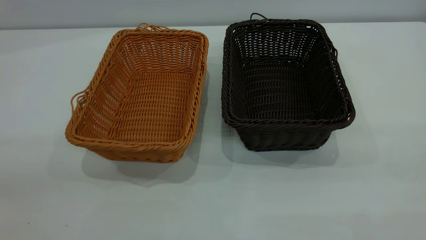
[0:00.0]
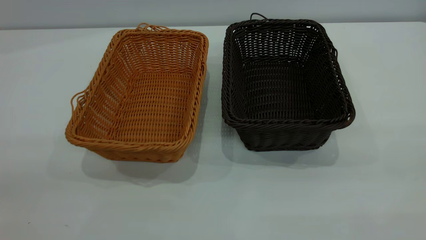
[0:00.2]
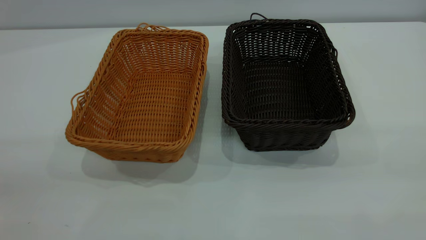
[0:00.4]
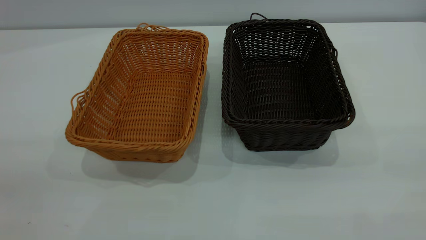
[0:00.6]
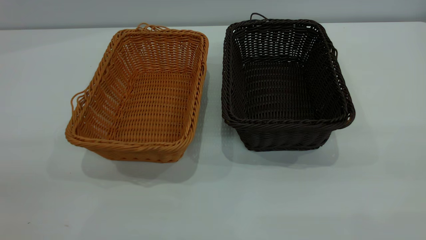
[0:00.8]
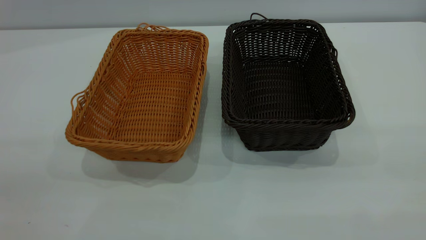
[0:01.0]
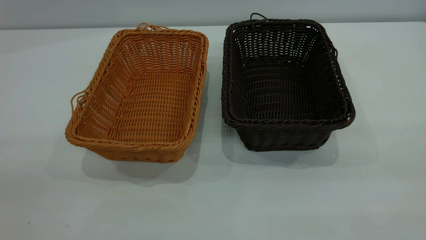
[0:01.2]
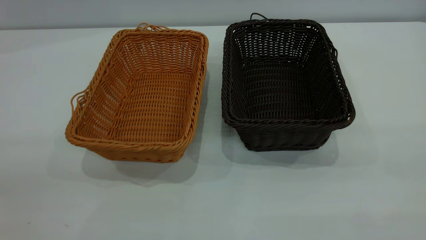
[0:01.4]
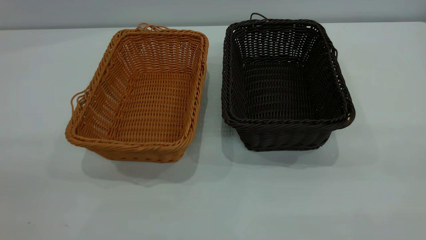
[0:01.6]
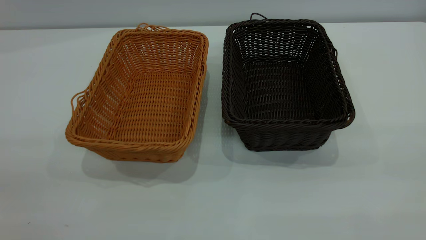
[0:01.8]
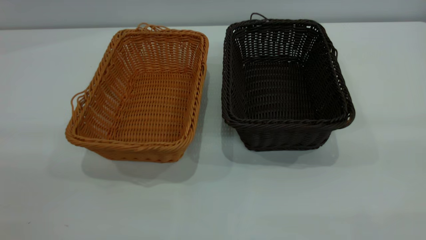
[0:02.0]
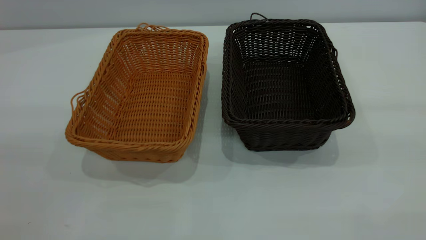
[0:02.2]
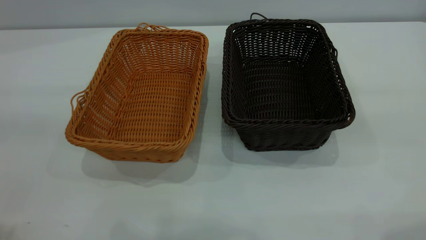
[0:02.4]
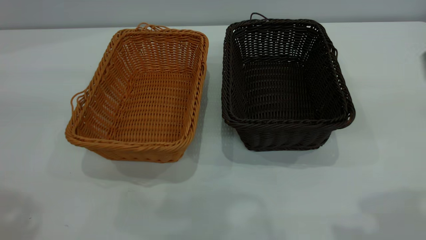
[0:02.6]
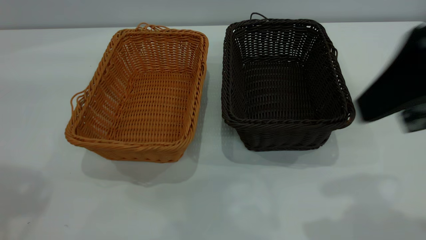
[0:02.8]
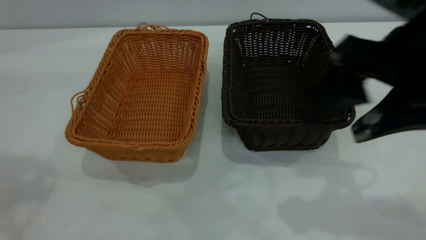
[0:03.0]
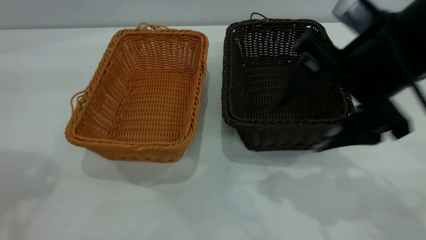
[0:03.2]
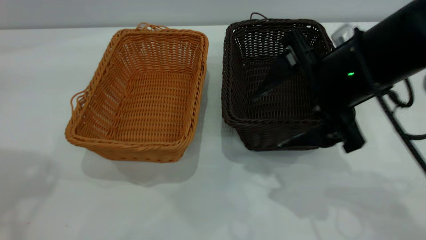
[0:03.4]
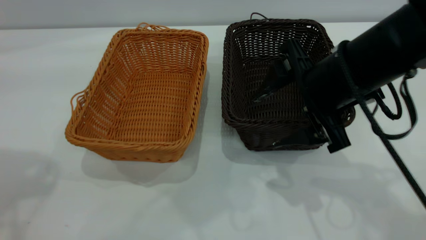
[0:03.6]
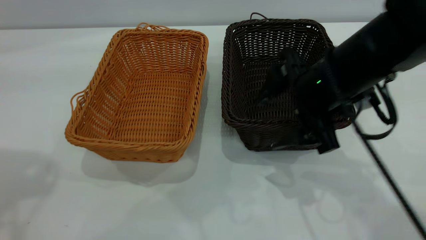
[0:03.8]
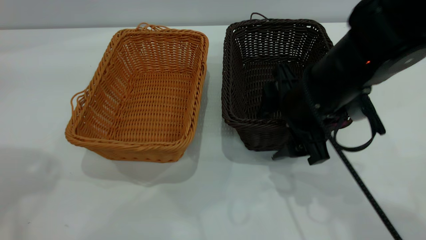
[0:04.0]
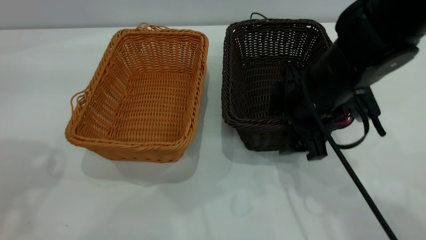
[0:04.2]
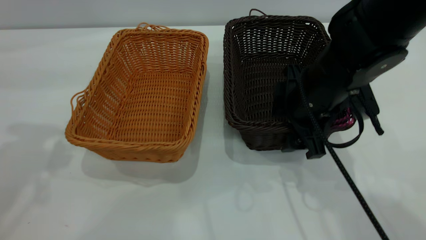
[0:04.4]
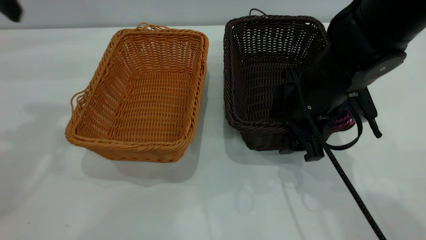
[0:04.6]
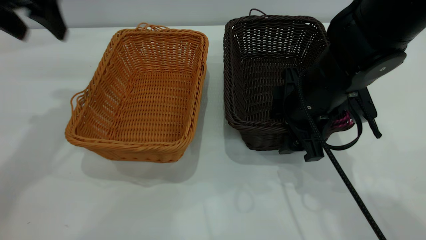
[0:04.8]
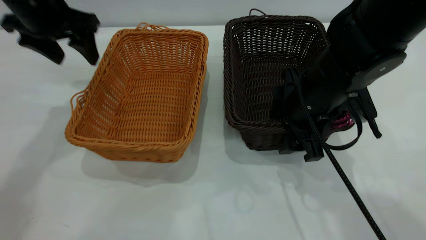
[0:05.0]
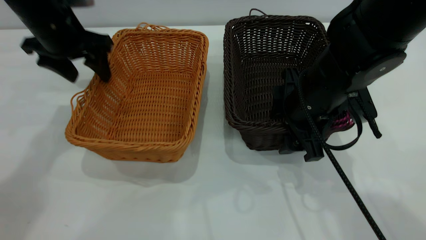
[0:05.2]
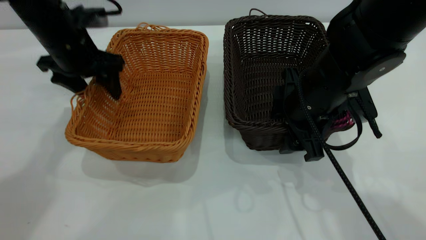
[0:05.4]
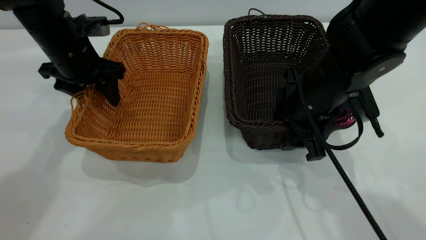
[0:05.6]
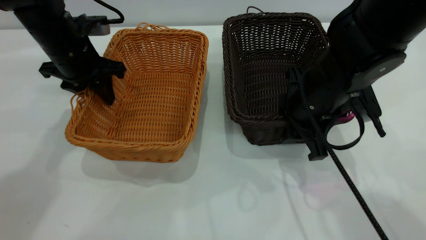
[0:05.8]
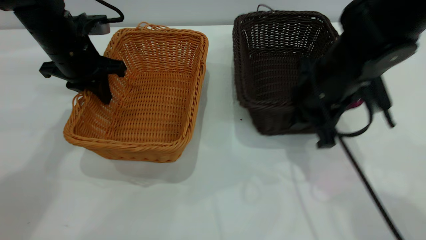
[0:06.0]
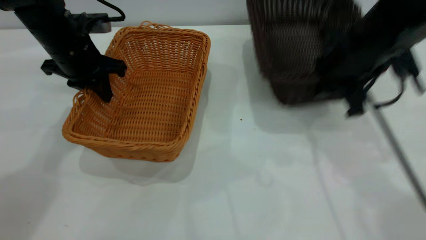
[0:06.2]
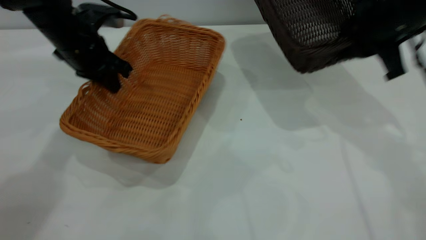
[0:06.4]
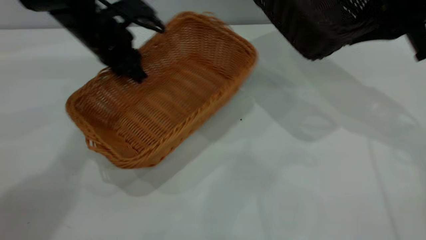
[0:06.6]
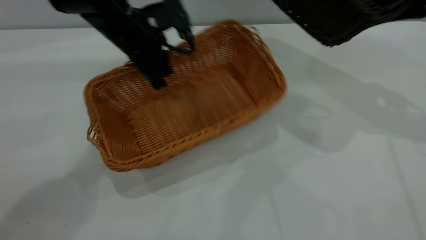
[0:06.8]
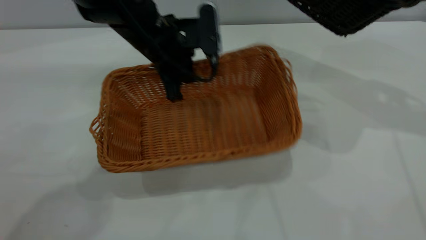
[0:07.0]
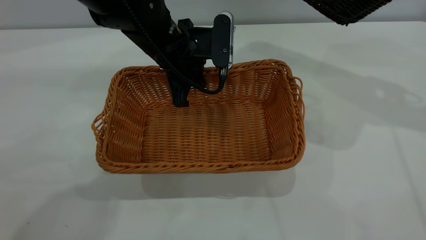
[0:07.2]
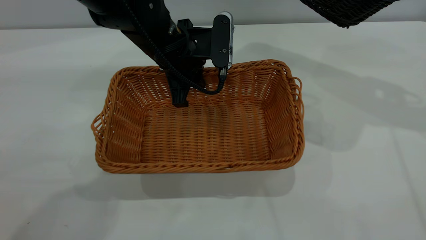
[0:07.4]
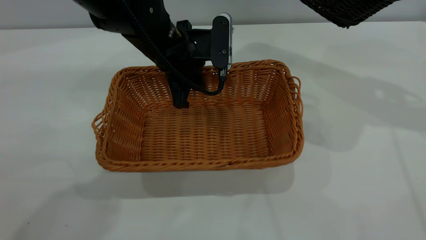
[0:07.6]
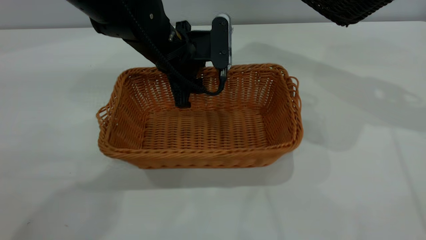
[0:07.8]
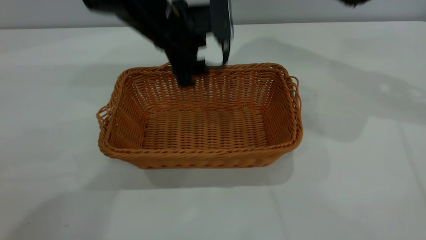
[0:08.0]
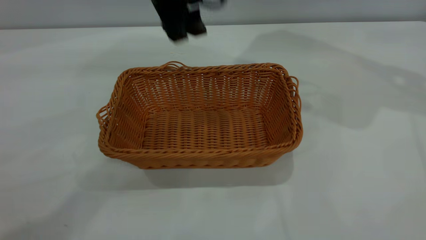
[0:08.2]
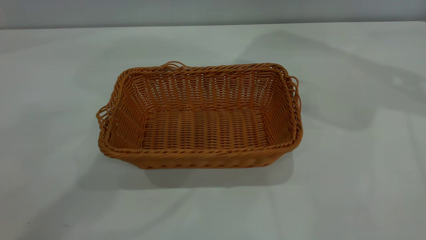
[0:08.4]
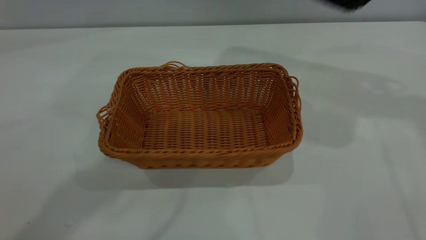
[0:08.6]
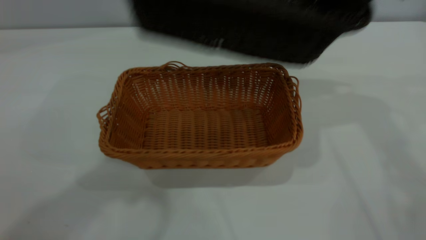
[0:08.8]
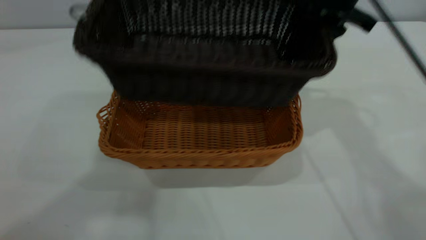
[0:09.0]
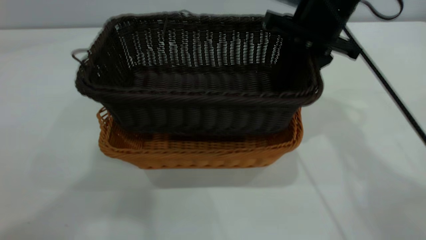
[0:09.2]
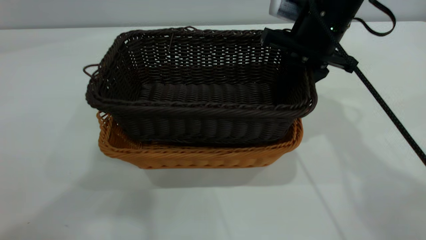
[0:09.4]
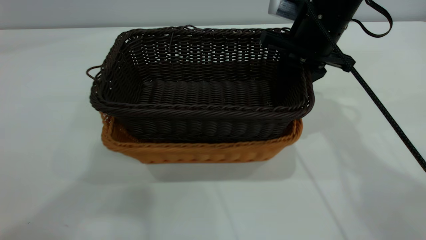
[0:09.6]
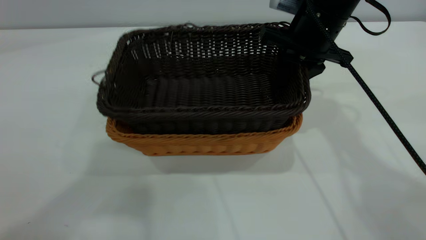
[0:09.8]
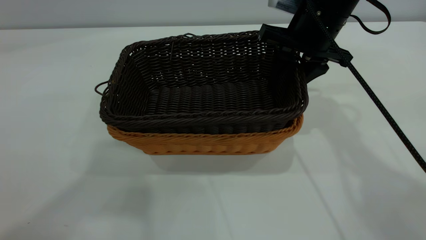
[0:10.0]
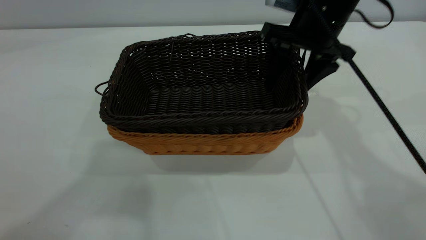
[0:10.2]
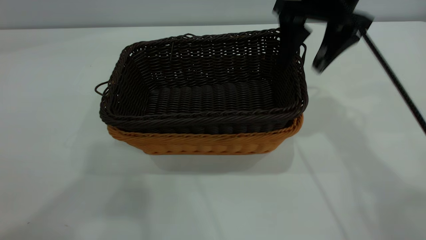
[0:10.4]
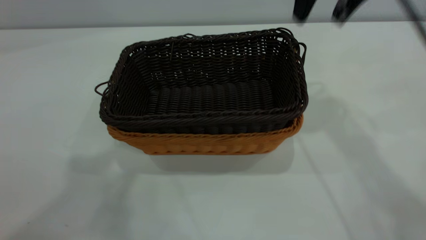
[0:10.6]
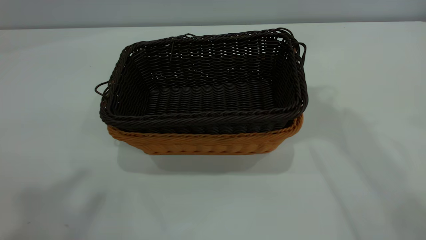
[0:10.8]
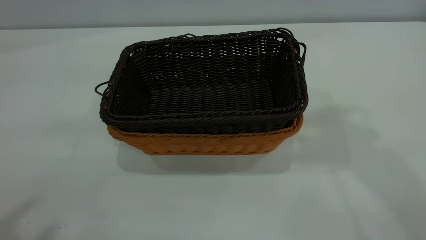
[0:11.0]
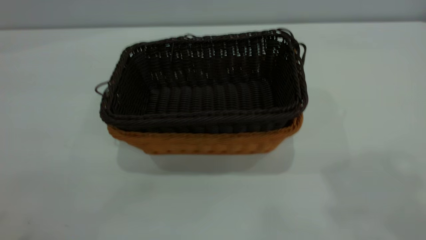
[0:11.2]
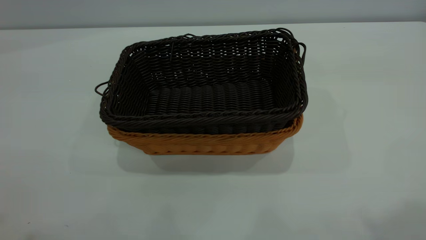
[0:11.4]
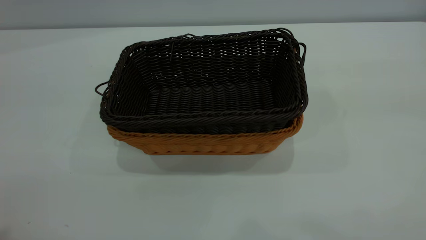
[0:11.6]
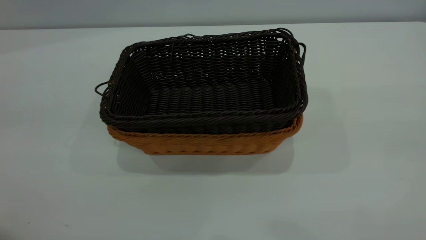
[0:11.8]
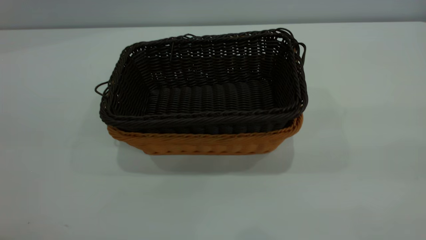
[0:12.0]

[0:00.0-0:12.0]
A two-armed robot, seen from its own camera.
Task of the whole recording: the left gripper grasp the brown basket and place it in the center of the table, the right gripper grasp the black basket and place it inside the brown one.
Step, 0:00.0 to 0:06.0: Pick up the light basket with the right gripper.
Step, 0:06.2 to 0:07.8: Place the light-colored basket in the center.
Step, 0:08.0 to 0:10.4: Place the dark basket on top of the light basket.
0:00.0 to 0:01.6: Both grippers stay put.
0:01.6 to 0:03.0: The right gripper goes some 30 cm forward, downward and to the left.
0:03.0 to 0:04.4: The right gripper goes approximately 15 cm downward and forward, while the left gripper goes some 10 cm forward and downward.
0:04.4 to 0:06.0: The right gripper closes its fingers, while the left gripper is displaced downward and forward by approximately 25 cm, and closes.
0:06.0 to 0:07.6: The right gripper moves upward and to the right, roughly 20 cm. Meanwhile the left gripper is displaced to the right by some 15 cm, and opens.
0:07.6 to 0:09.0: The left gripper heads upward and backward, covering approximately 40 cm, and opens up. The right gripper heads to the left, covering approximately 15 cm.
0:09.0 to 0:10.4: The right gripper moves some 5 cm downward and comes back, and opens up.
0:10.4 to 0:12.0: The right gripper travels backward by approximately 35 cm.
